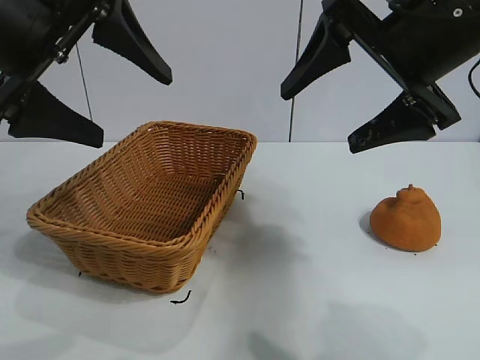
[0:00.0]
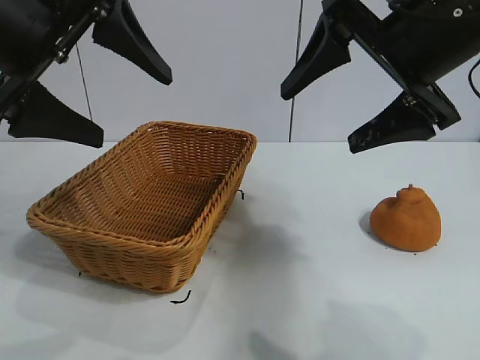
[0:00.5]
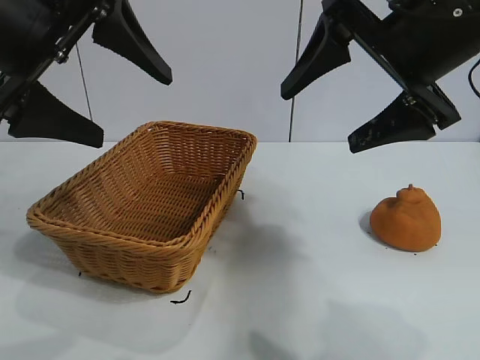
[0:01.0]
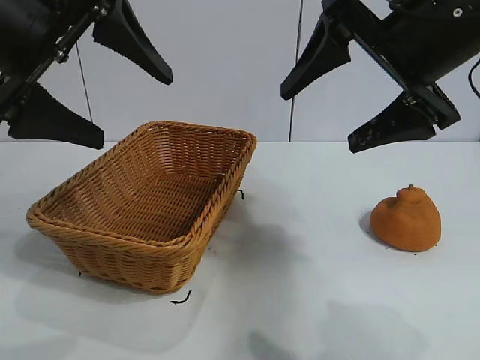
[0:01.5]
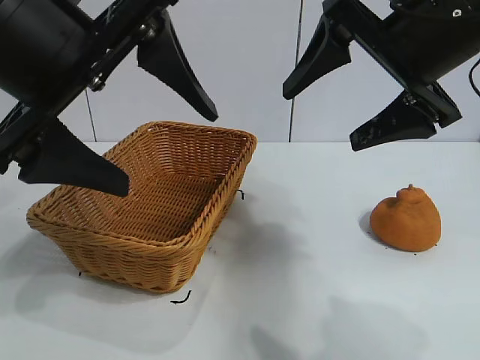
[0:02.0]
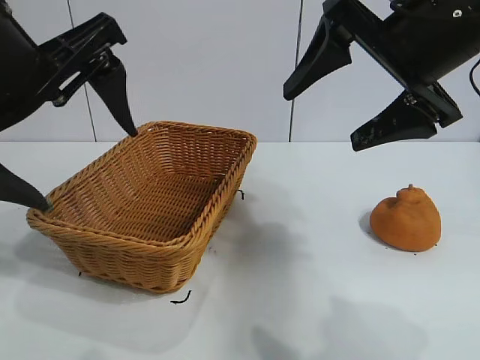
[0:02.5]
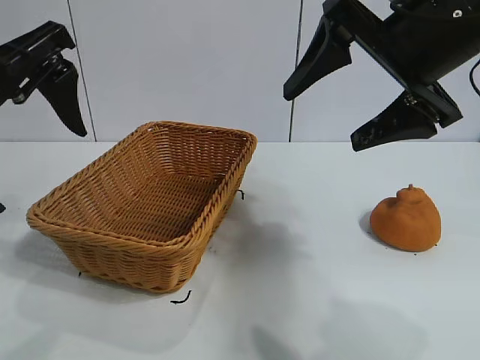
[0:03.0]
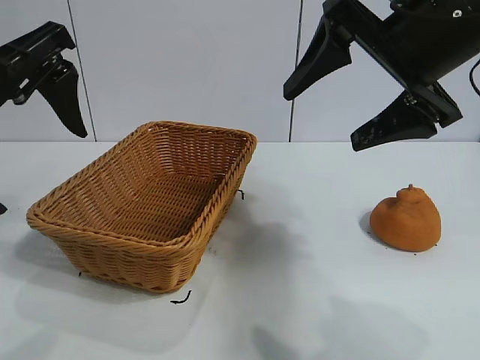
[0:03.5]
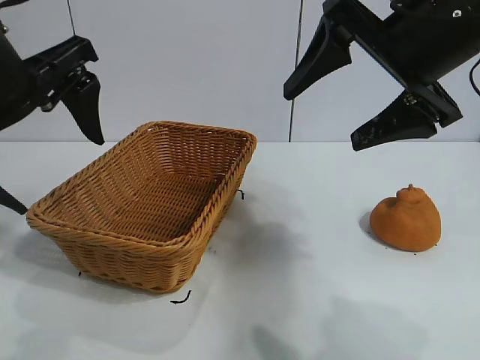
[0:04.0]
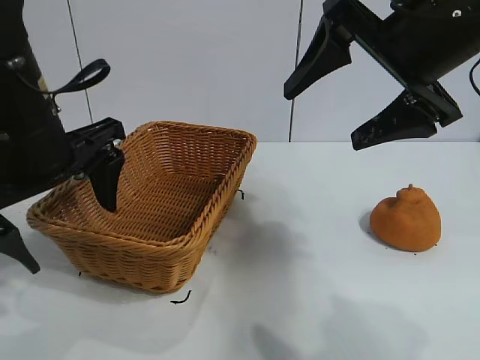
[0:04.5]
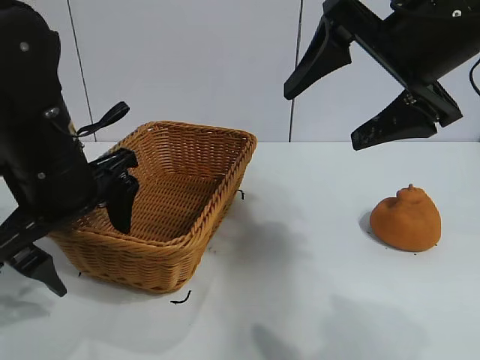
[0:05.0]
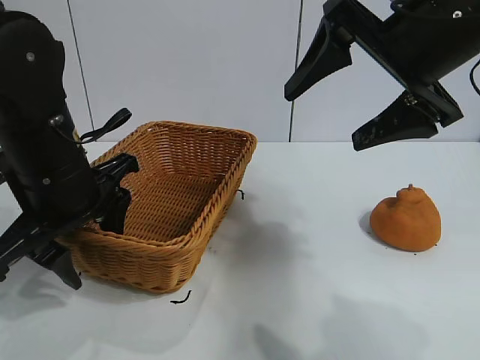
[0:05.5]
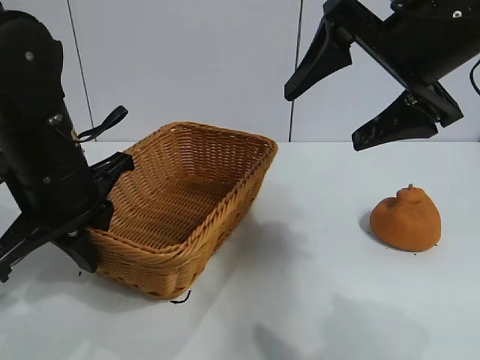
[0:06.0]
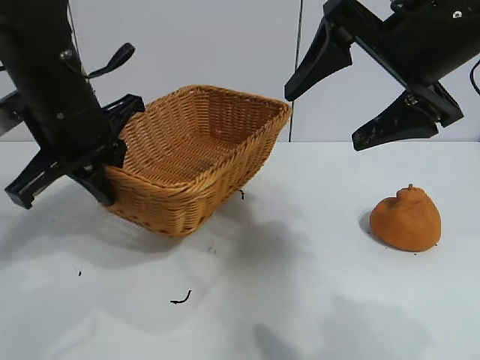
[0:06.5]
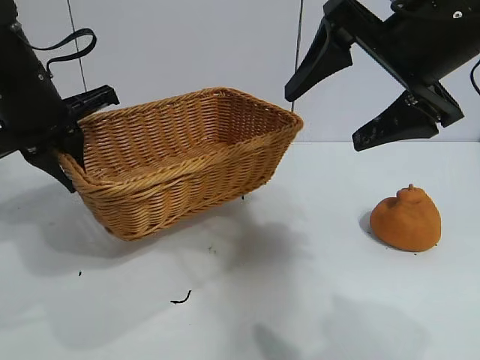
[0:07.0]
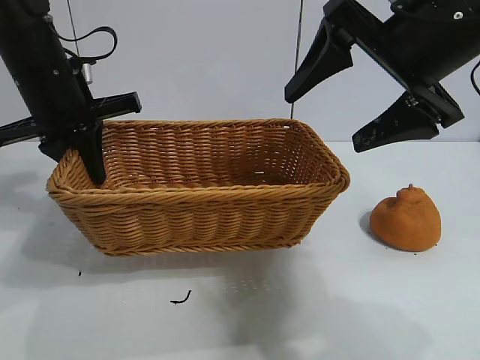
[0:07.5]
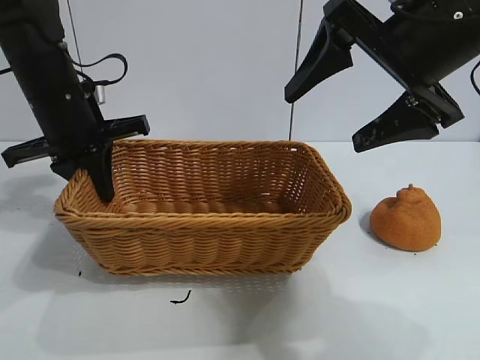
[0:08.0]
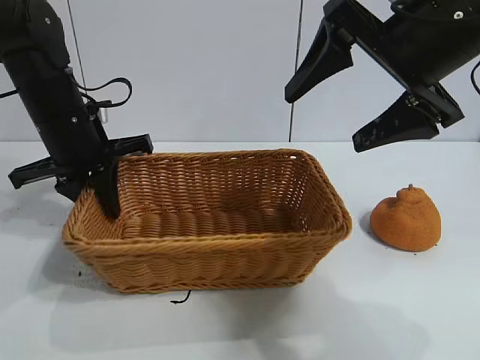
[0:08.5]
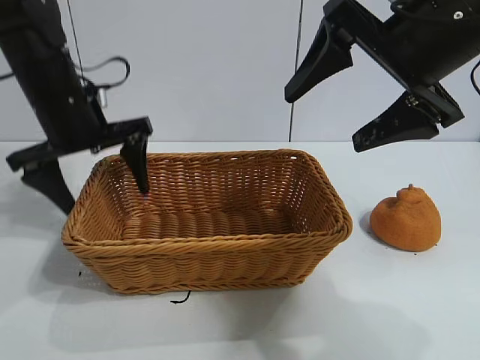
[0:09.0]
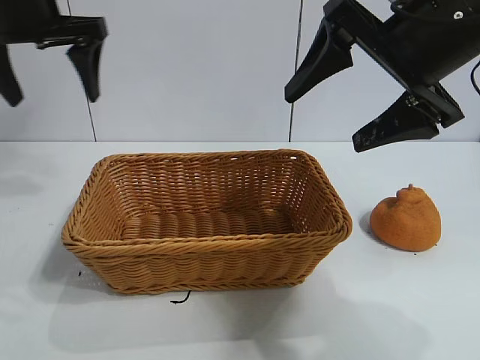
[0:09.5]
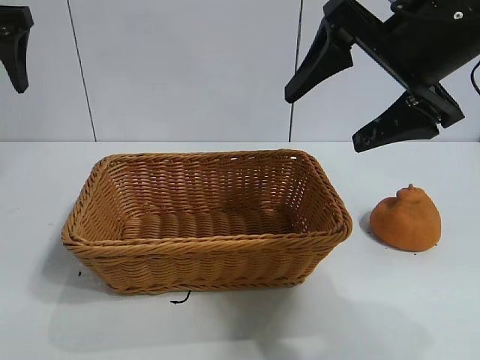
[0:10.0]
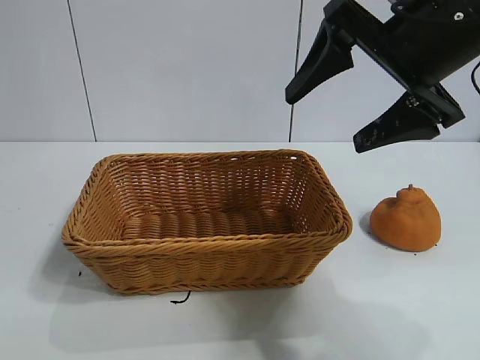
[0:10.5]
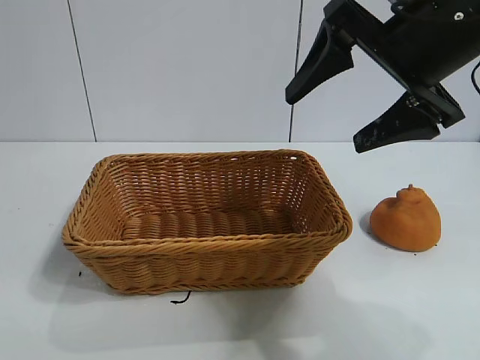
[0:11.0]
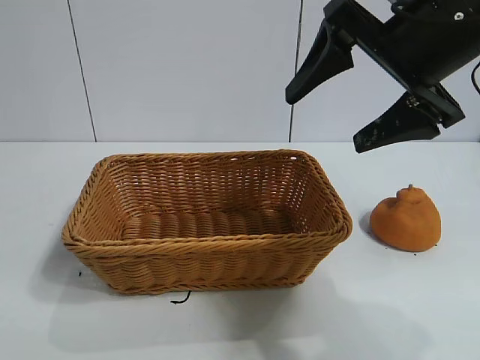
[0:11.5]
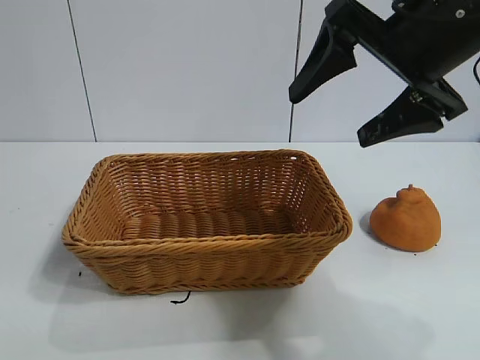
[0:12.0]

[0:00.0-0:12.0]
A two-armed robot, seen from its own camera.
Task of the whole recording: pick up the orange and put it into the basket.
Step, 0:02.0 to 0:05.5: Grasp the basket with left gripper.
Step, 0:06.5 to 0:08.5: Place the basket in the center of view with left gripper.

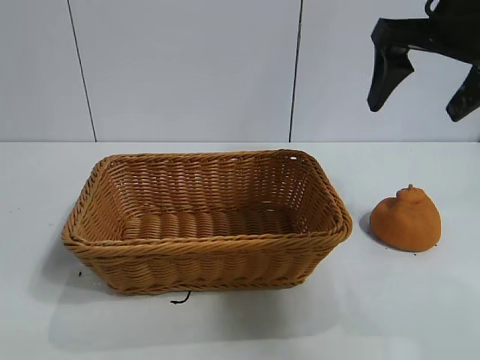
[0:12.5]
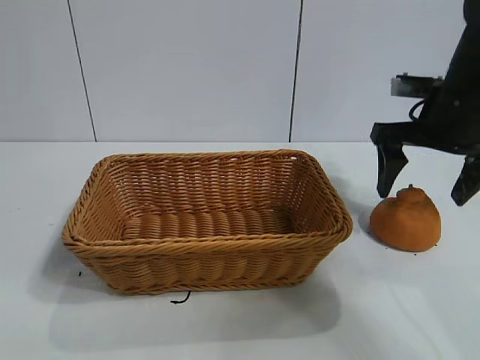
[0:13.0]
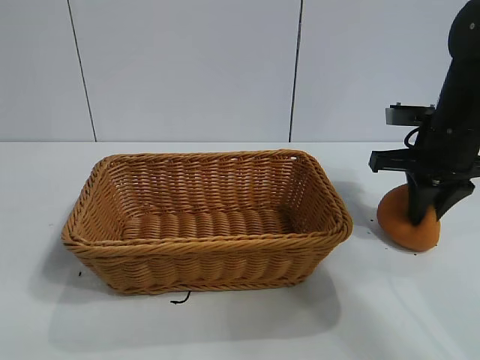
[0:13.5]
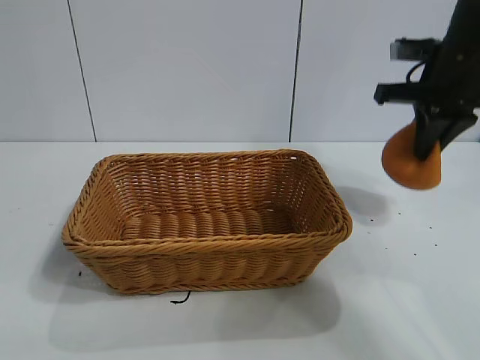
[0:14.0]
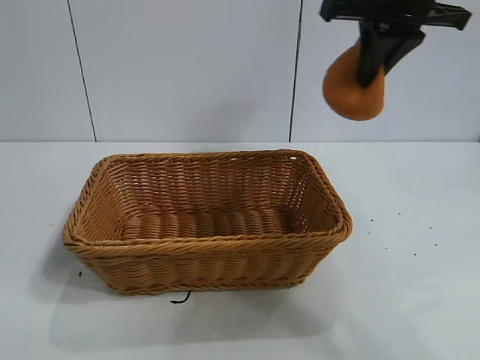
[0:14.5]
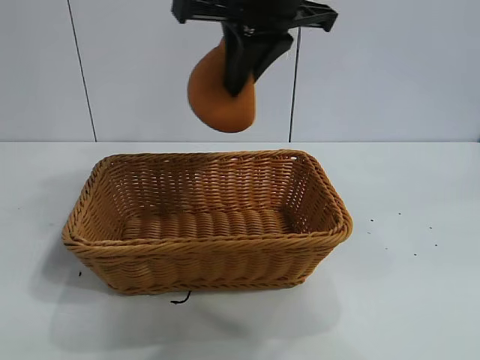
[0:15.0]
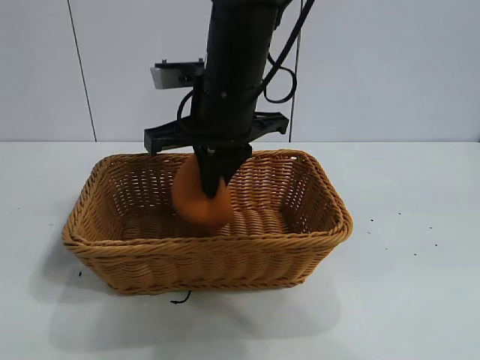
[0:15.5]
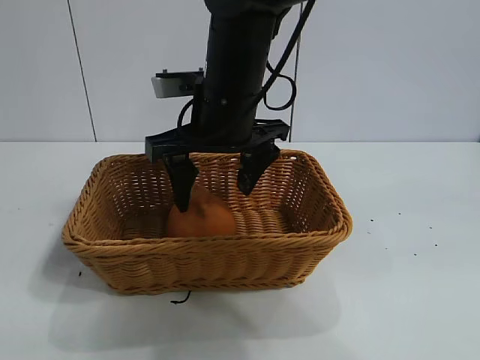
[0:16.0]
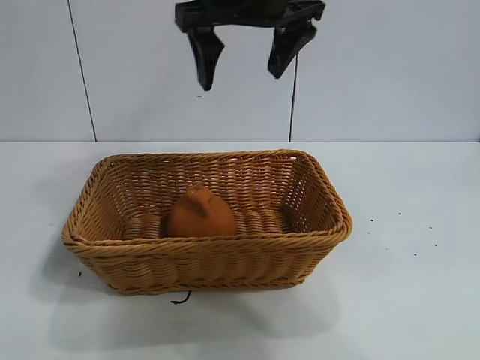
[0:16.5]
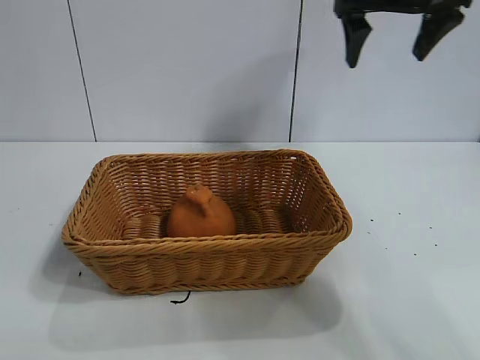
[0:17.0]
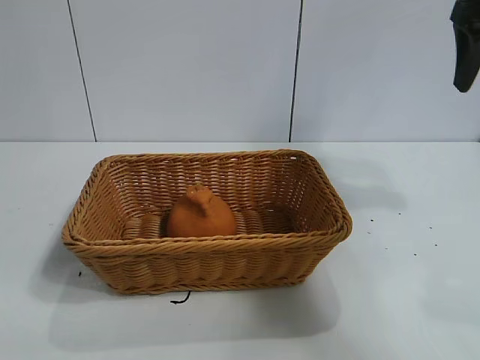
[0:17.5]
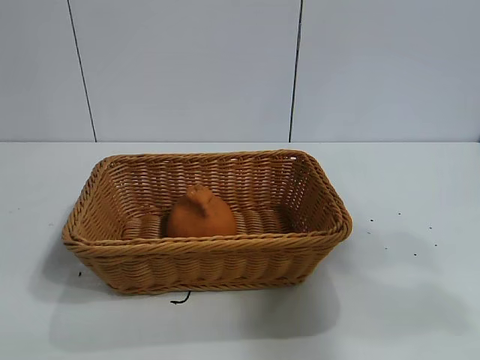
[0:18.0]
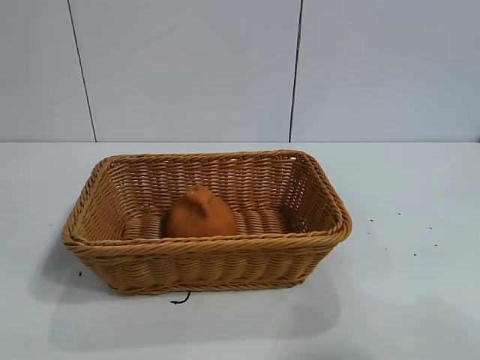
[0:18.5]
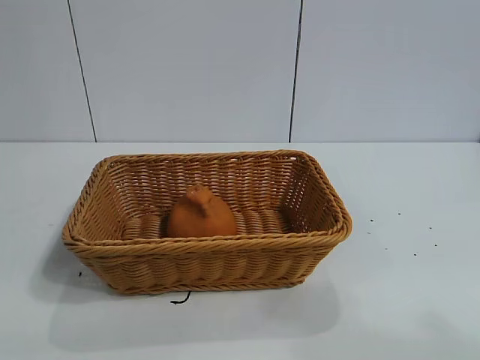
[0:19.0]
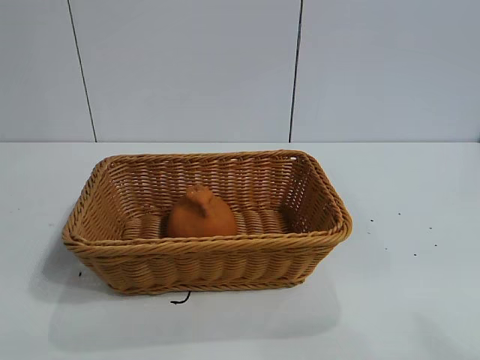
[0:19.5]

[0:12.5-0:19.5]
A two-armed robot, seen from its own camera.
Task of the whole recording: pick up the orange and put it into the basket.
Step, 0:14.0 to 0:16.0: Place the orange in the basket with right gripper.

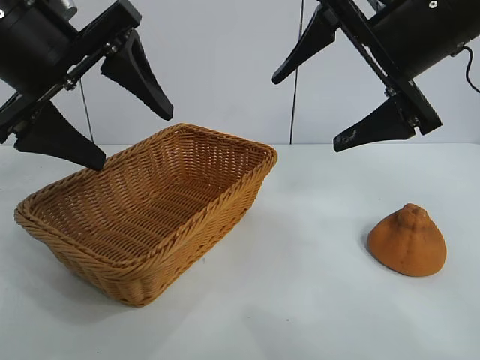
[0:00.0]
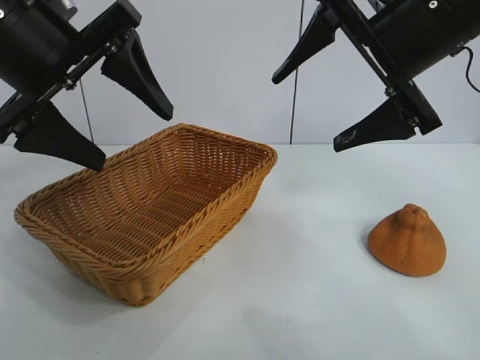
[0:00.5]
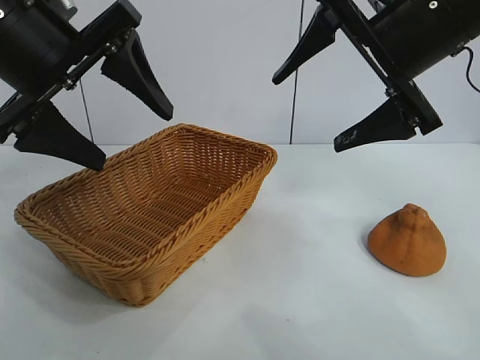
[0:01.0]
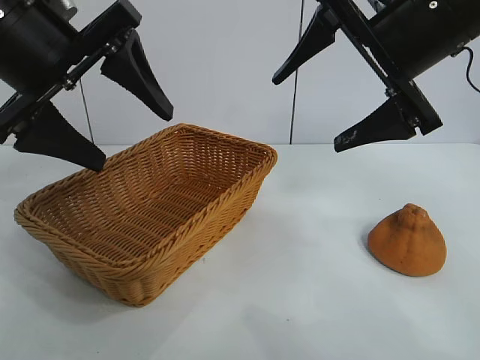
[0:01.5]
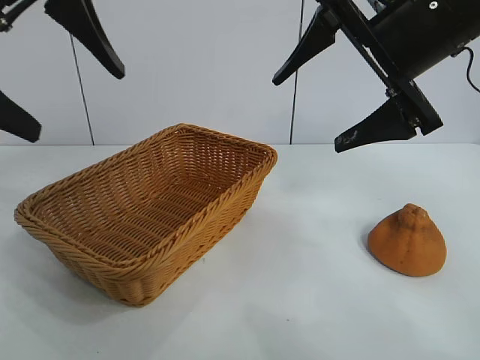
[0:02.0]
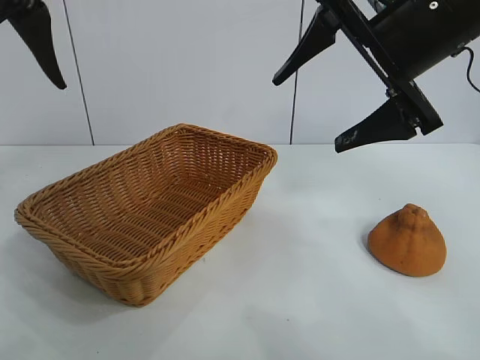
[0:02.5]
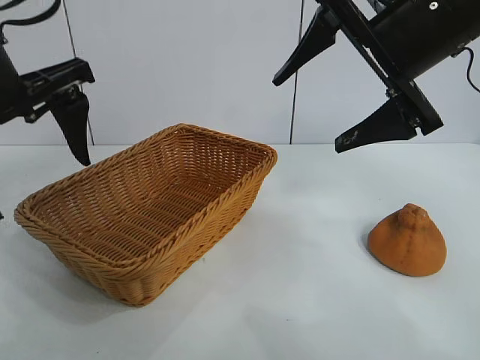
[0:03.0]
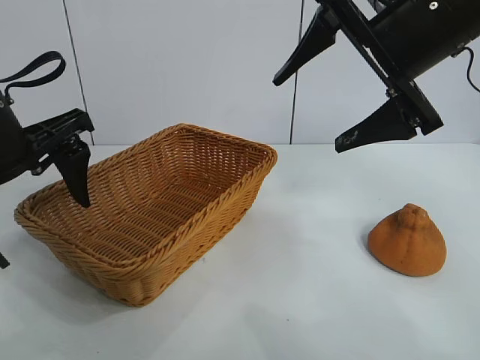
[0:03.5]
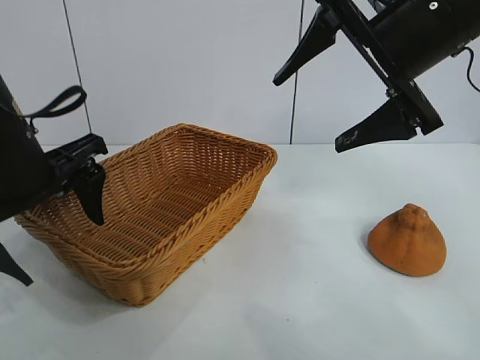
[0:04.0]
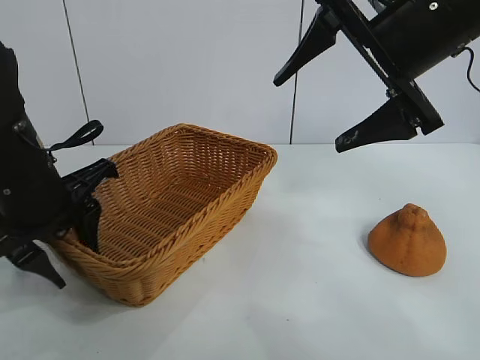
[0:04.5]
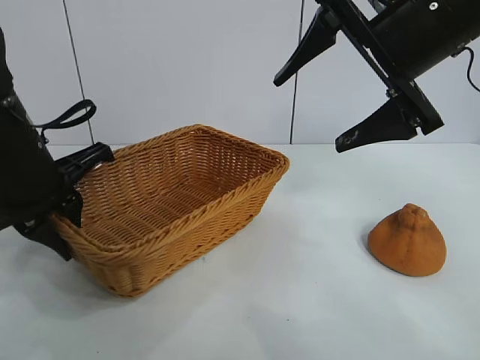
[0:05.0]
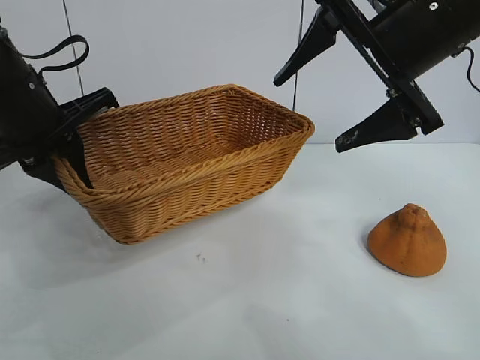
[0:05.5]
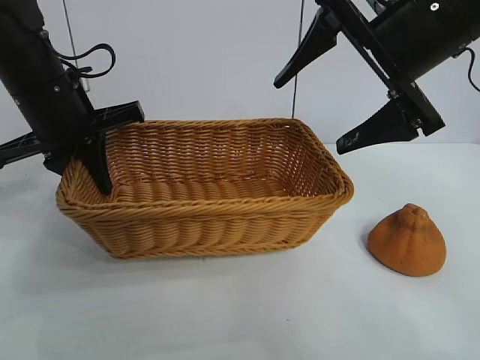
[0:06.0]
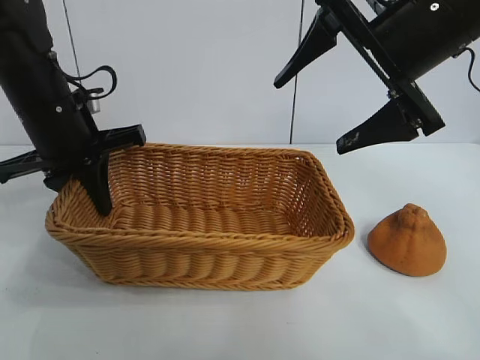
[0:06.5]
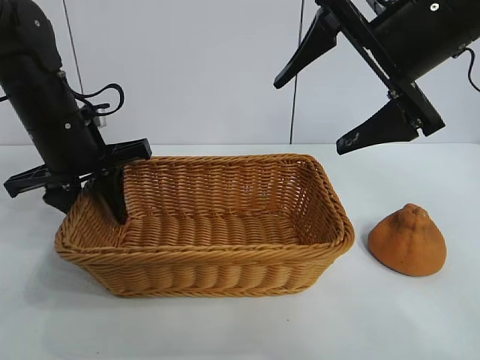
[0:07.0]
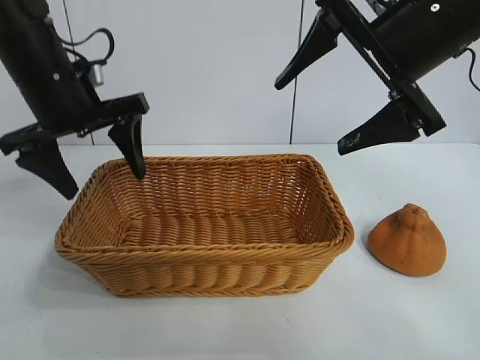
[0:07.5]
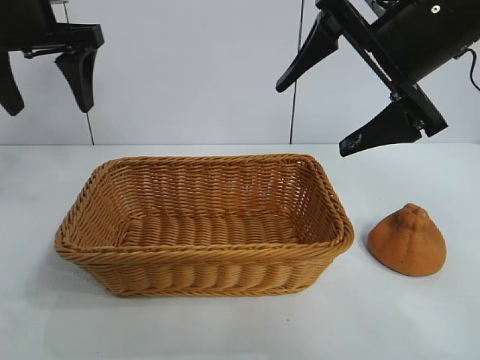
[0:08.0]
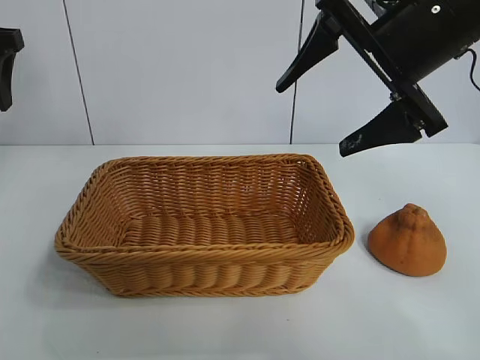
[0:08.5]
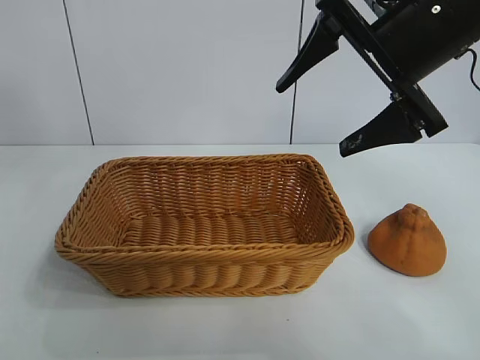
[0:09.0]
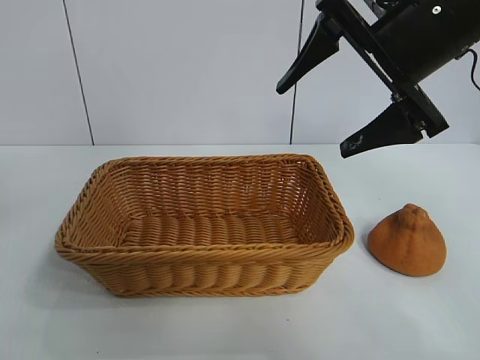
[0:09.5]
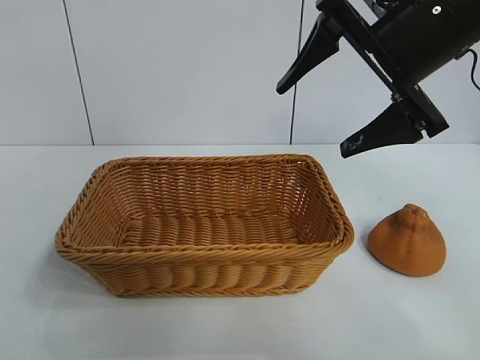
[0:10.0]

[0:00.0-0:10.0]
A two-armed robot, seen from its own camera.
Task of the whole recording: pick up the orange and put it into the basket.
Step, 0:01.5 to 0:04.5: Grasp the basket with left gripper.
Step, 0:05.0 to 0:08.0: Place the basket in the center of view with left gripper.
